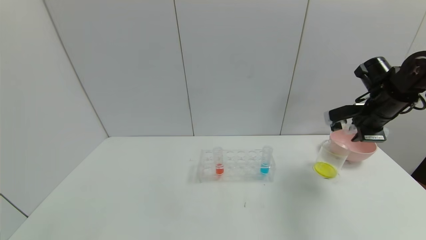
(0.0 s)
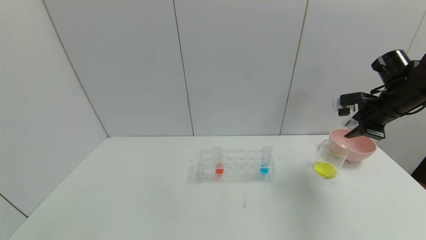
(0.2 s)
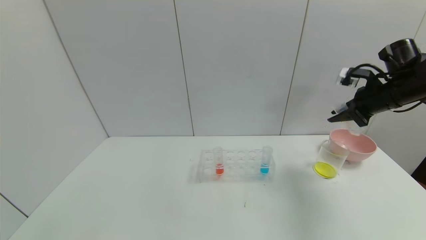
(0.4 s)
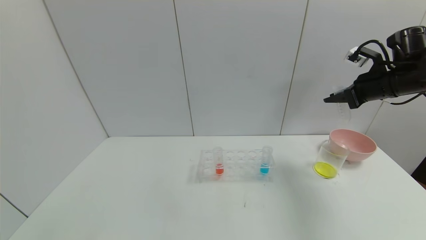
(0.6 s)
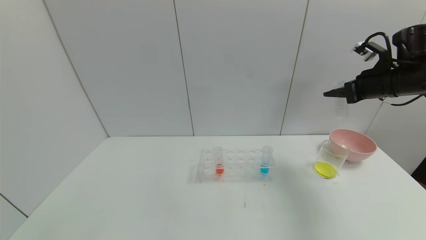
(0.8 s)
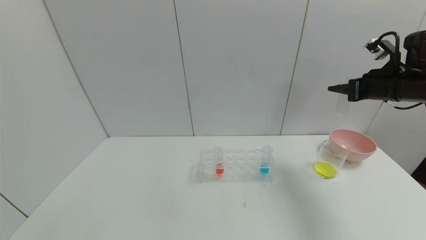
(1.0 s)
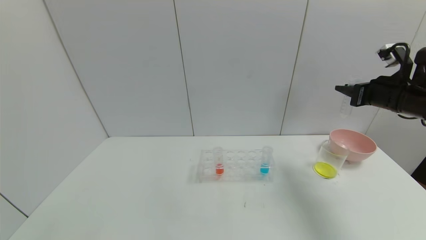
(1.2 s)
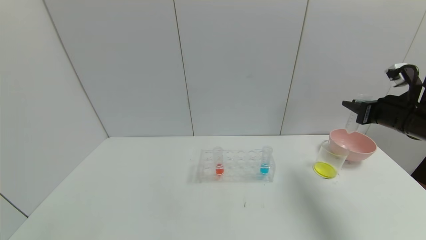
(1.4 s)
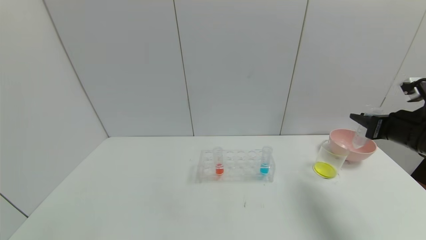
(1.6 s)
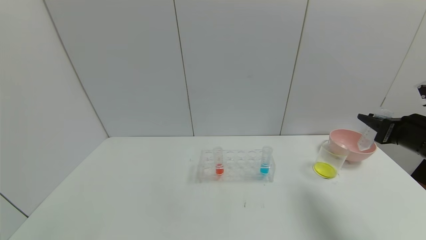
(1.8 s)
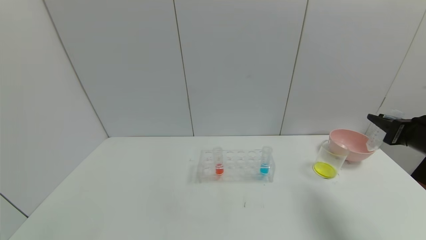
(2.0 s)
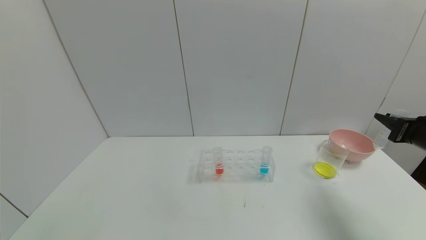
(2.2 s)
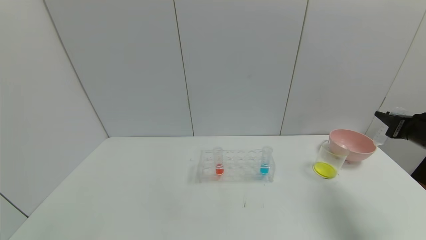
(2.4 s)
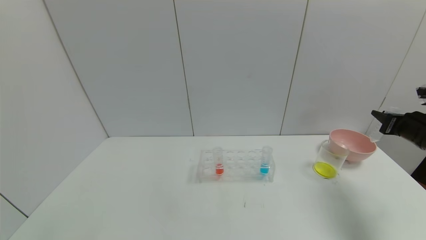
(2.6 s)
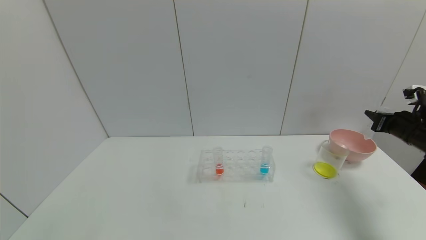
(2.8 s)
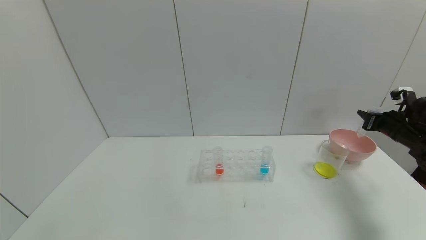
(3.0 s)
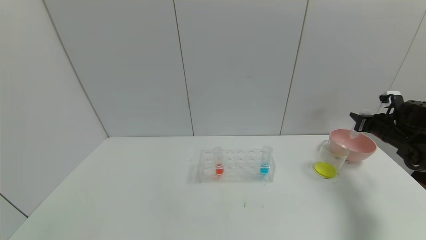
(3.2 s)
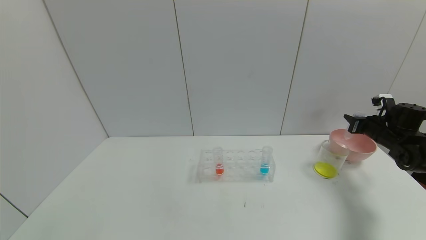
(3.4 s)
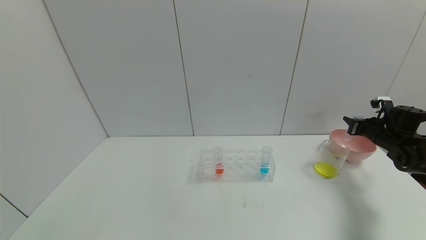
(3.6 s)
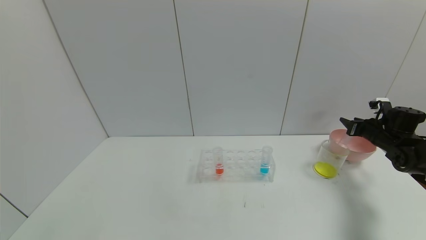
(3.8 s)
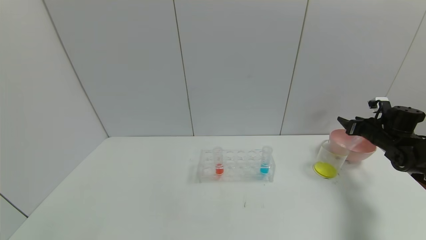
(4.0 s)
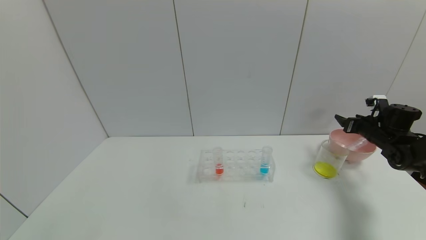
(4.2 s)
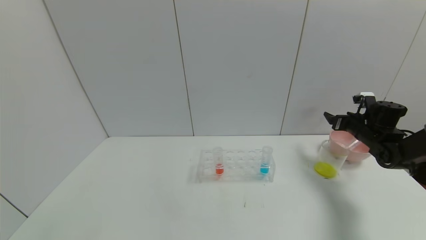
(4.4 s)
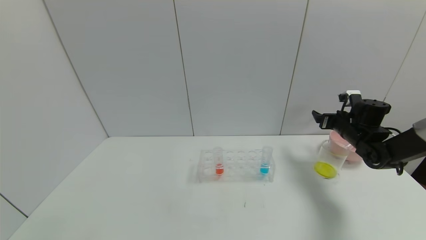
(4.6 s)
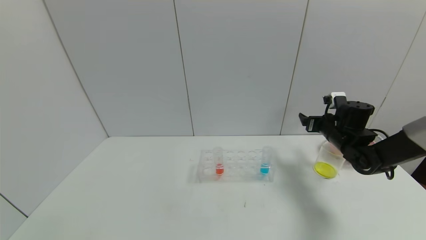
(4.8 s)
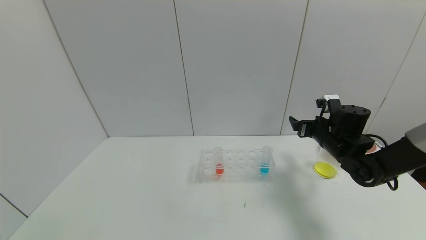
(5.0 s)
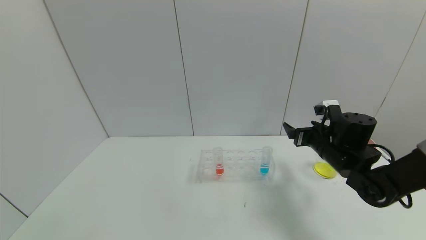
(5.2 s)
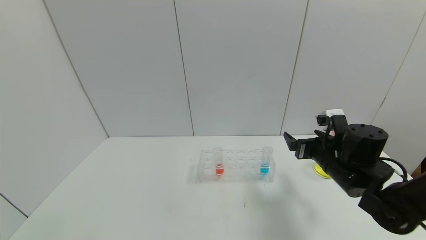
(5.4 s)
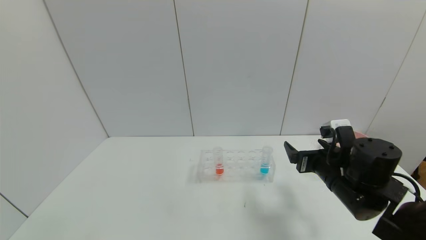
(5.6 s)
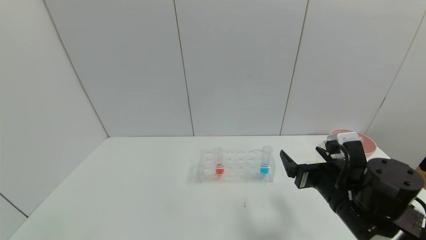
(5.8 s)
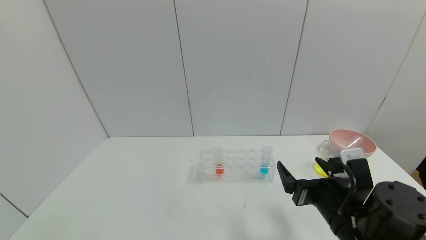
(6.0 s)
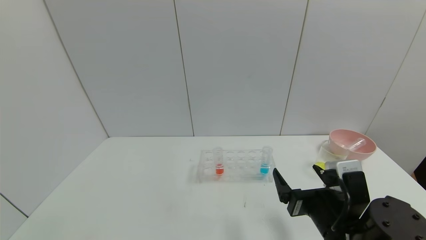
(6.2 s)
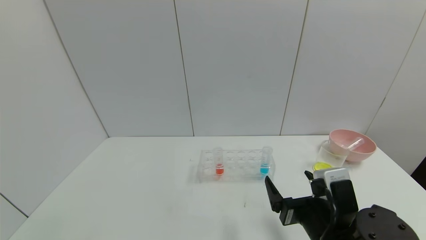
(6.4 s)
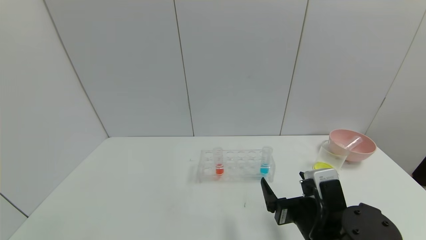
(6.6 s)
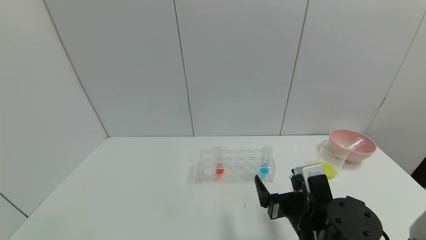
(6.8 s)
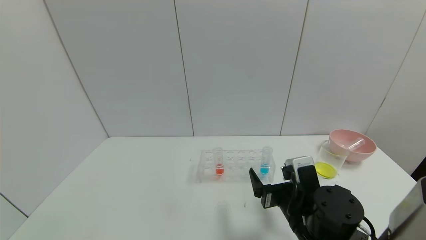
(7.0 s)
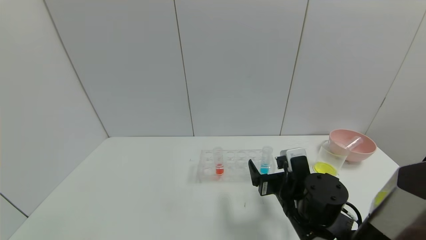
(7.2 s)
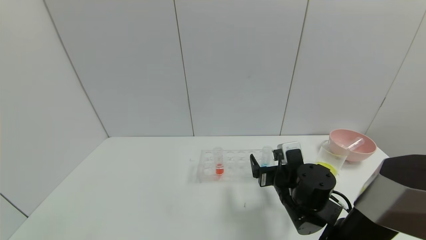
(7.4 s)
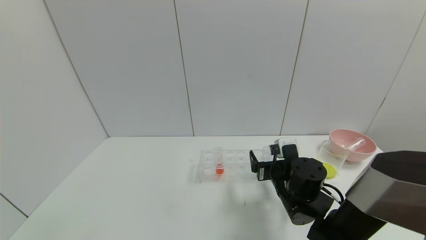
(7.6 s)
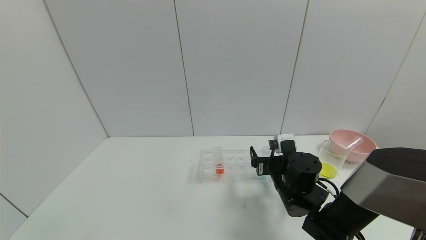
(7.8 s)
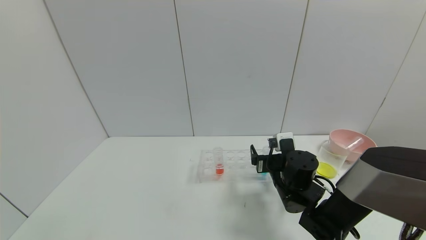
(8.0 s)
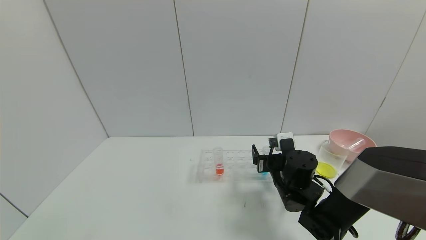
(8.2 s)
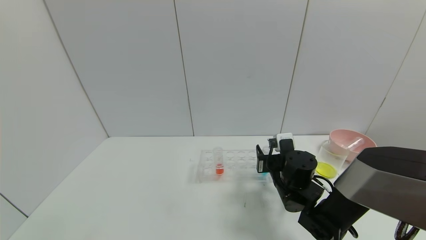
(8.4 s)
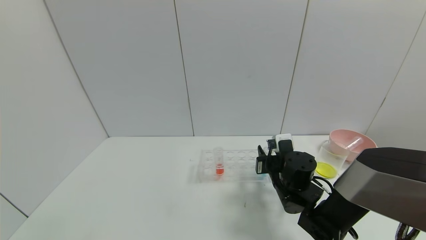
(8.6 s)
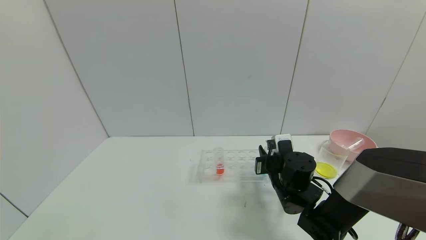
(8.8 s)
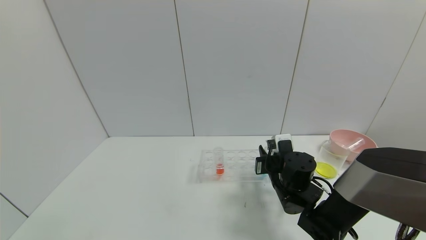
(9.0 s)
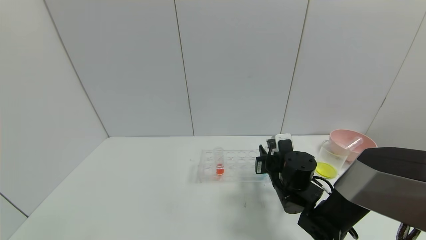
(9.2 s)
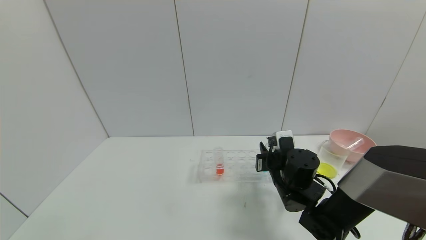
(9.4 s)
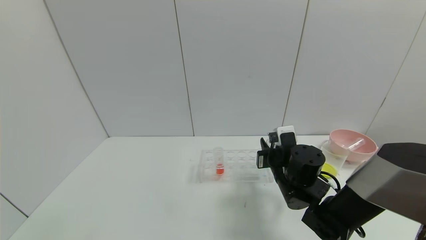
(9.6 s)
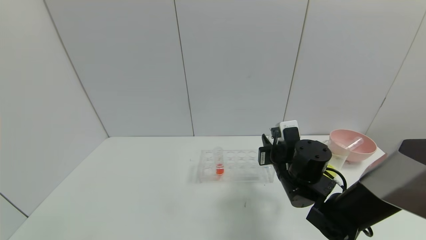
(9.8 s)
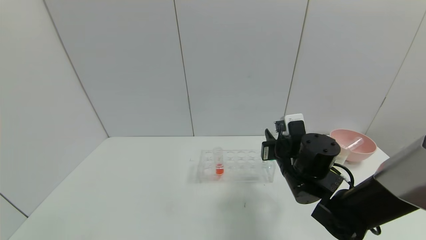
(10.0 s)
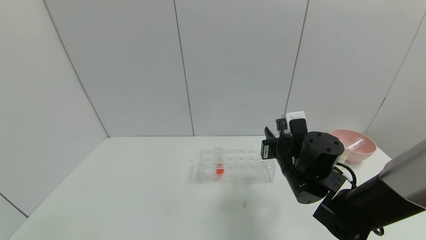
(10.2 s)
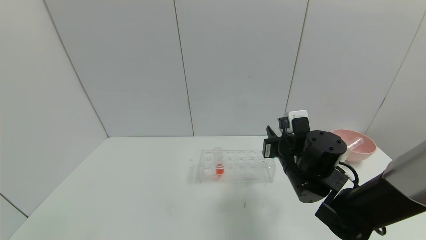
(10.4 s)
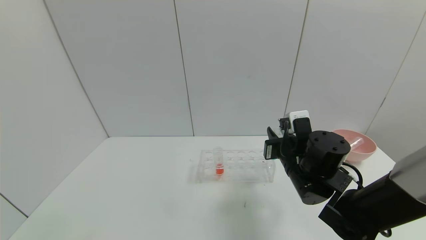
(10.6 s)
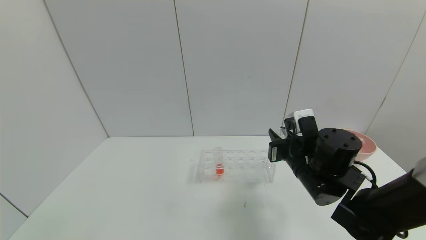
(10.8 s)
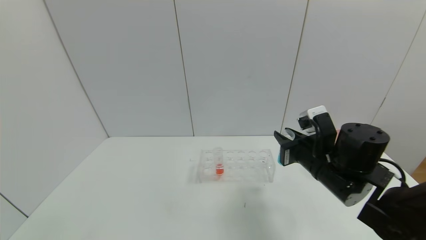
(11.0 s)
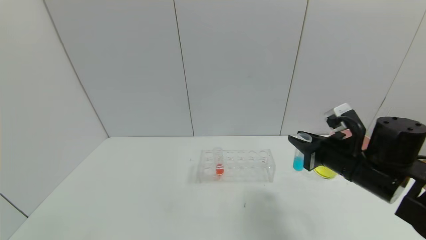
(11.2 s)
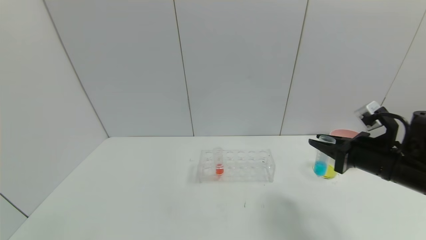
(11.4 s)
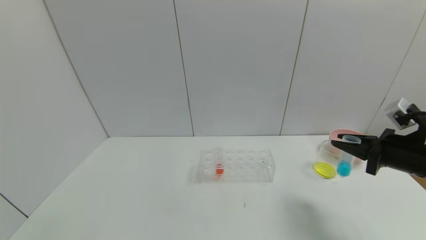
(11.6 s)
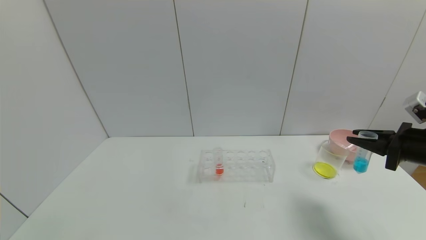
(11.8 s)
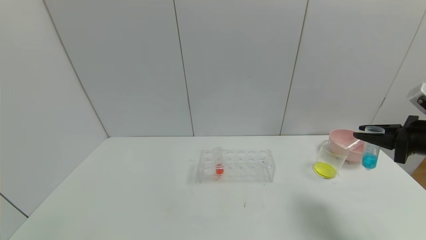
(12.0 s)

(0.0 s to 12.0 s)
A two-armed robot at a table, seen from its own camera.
Task of the whole recording: pick up the test tube with yellow pigment and the test tube with blue pigment by grippers and pour them into the beaker.
Step, 0.0 s - 2.8 s: Pour the yellow reagent into the graduated cylinder with right gripper.
Step, 3.0 s - 5.2 s: Place the test tube into the bowl with right gripper.
Step, 5.4 s - 11.2 s: Pick up the test tube containing the blue reagent with right gripper.
0.0 s - 1.6 s: The right gripper shifts some 10 cm backward.
1.6 s - 3.0 s: The right gripper goes about 15 cm forward, to the right and downward.
3.0 s - 4.4 s: The right gripper goes roughly 10 cm to the left and forward, and opens its fingers.
4.4 s - 6.0 s: The right gripper travels backward and to the left by about 35 cm.
6.0 s - 7.6 s: The right gripper shifts roughly 10 cm forward.
7.6 s - 9.0 s: The right gripper closes up.
9.0 s - 10.4 s: The right gripper travels upward by approximately 5 cm.
10.4 s - 12.0 s: The right gripper moves to the right, about 25 cm.

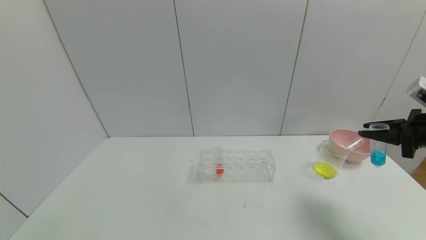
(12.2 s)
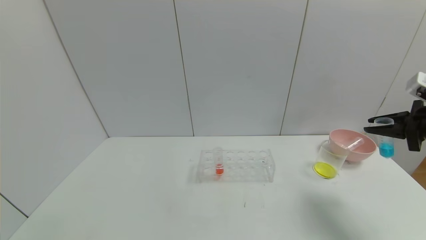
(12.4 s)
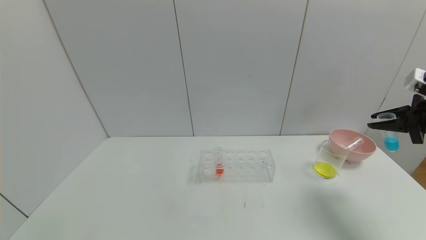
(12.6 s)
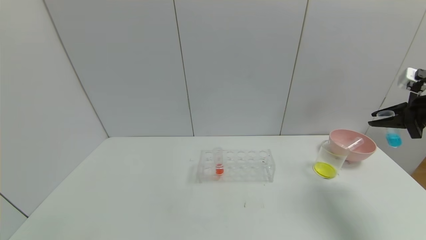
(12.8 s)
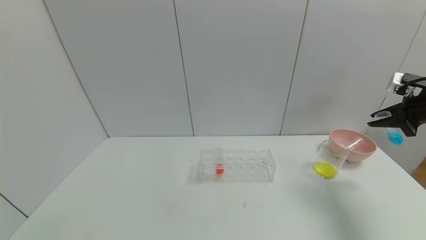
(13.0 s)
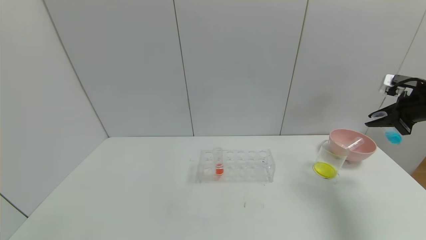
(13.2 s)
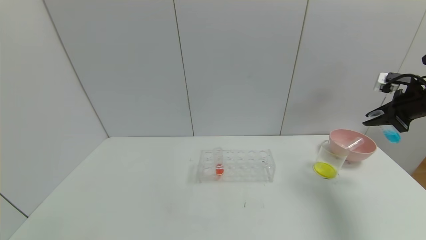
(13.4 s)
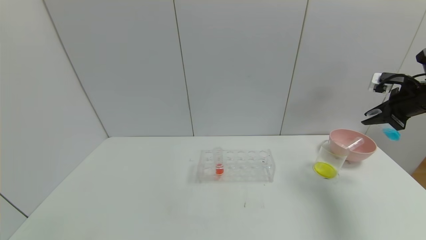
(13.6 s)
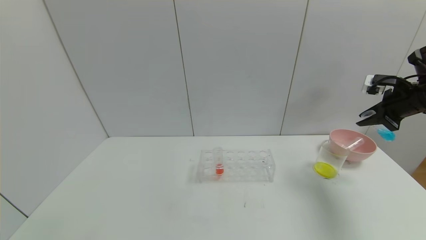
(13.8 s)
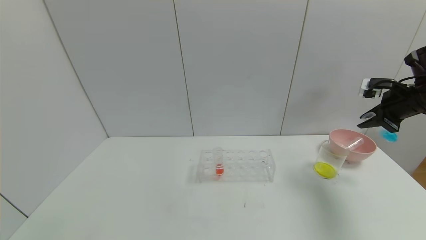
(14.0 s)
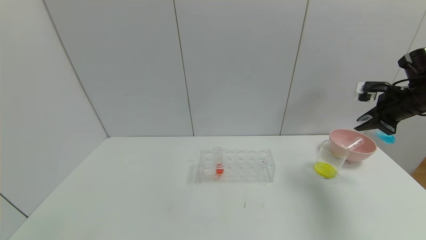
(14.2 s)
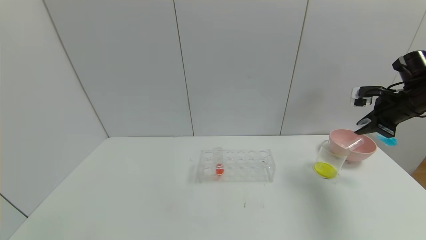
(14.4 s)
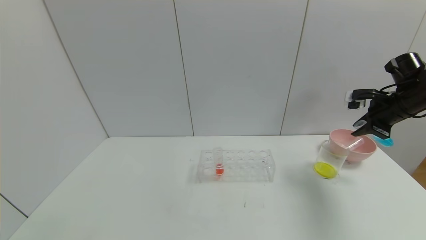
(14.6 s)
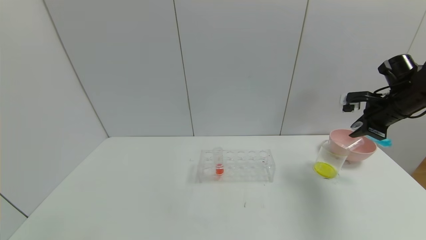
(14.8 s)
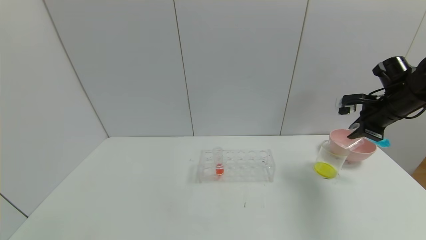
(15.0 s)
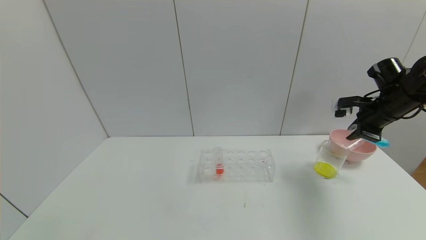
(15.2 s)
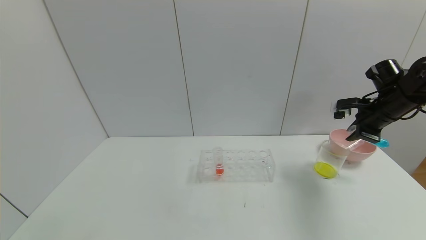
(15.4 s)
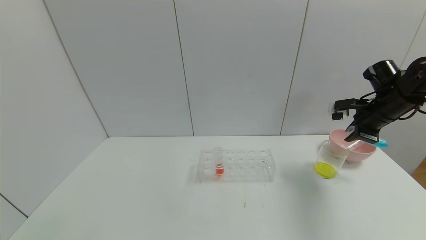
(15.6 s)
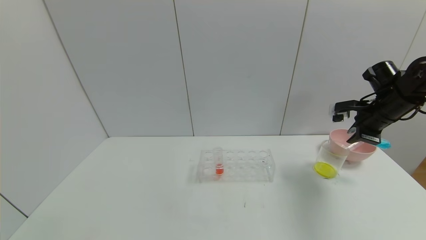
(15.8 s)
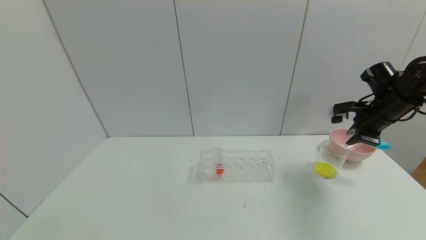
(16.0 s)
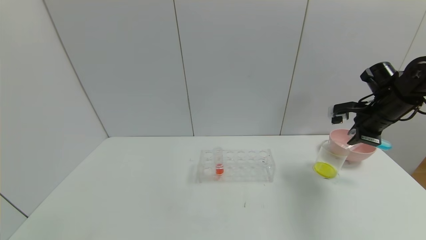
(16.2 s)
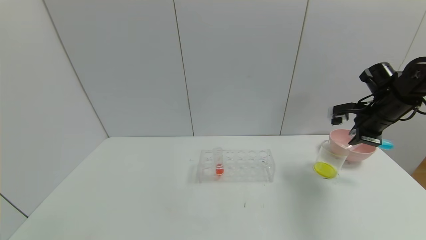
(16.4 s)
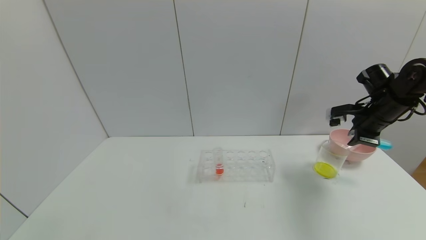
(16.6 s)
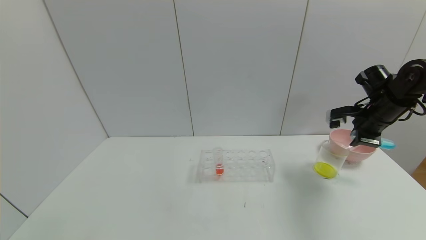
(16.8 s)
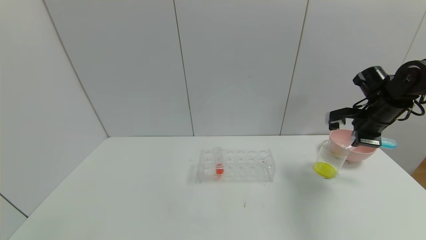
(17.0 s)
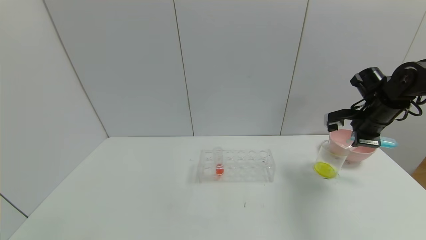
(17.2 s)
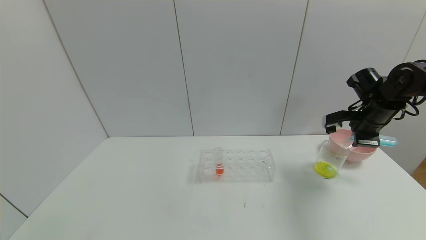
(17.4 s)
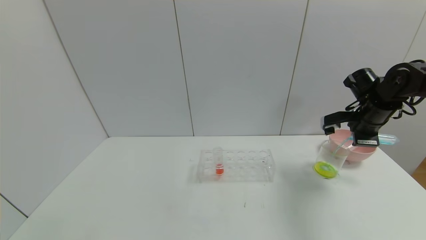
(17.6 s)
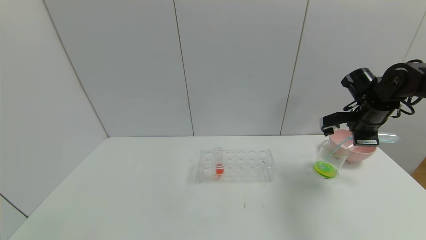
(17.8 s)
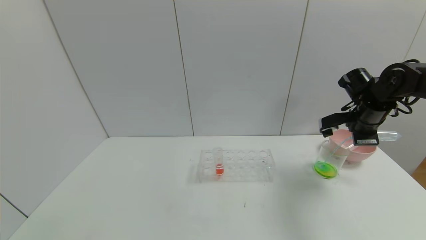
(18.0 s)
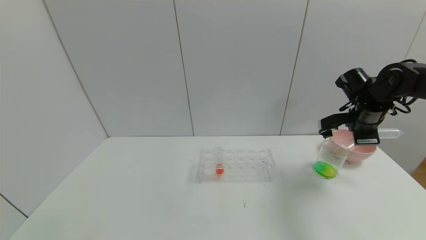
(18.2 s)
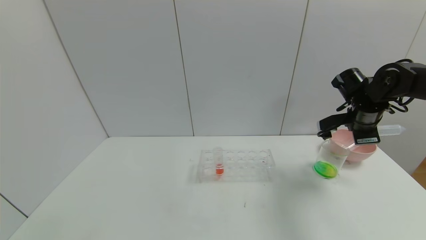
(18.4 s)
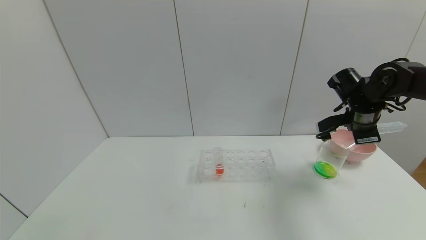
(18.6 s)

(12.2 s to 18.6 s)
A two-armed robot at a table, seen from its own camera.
Task of the whole recording: pick up the test tube with yellow pigment and the test tube with blue pigment by grippers and pour them into the beaker.
12.2 s - 13.8 s: The right gripper goes about 10 cm forward.
13.8 s - 15.4 s: The right gripper is displaced to the left by about 5 cm.
15.4 s - 17.0 s: There are only small adjustments of the grippers.
